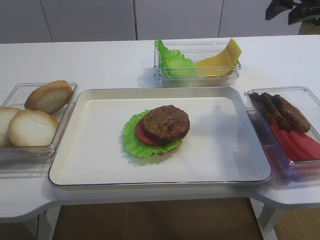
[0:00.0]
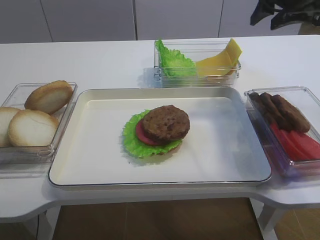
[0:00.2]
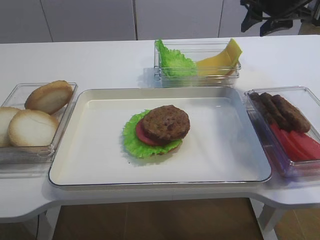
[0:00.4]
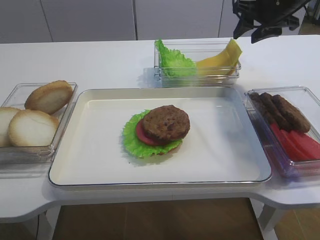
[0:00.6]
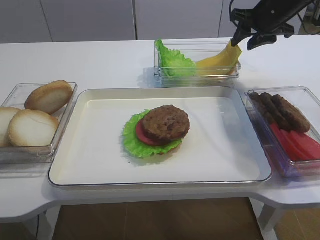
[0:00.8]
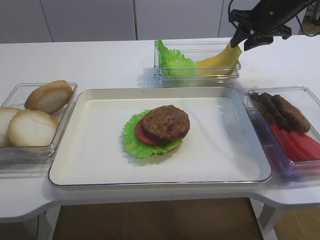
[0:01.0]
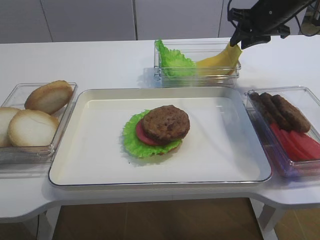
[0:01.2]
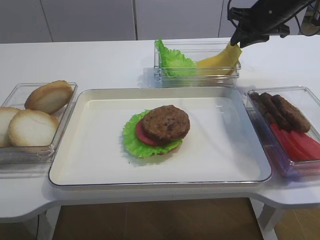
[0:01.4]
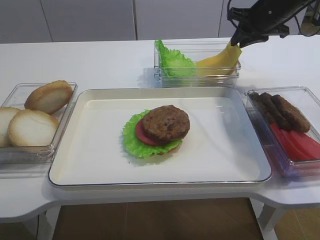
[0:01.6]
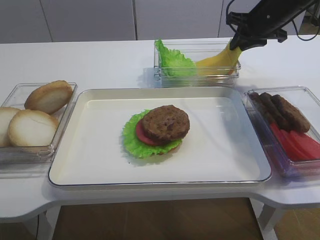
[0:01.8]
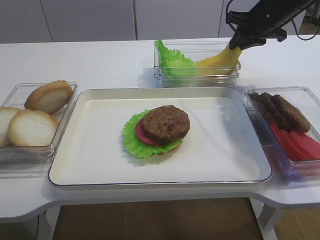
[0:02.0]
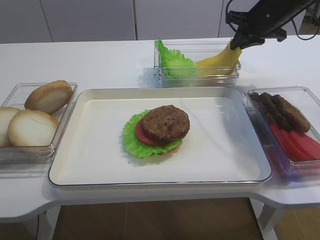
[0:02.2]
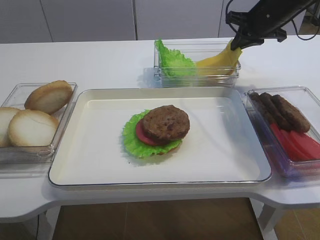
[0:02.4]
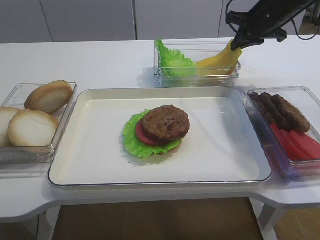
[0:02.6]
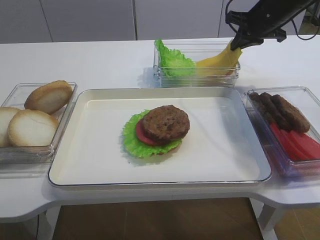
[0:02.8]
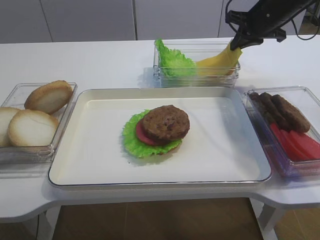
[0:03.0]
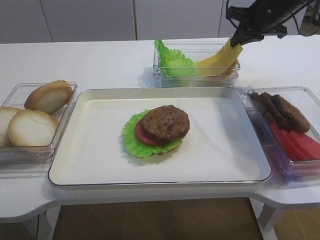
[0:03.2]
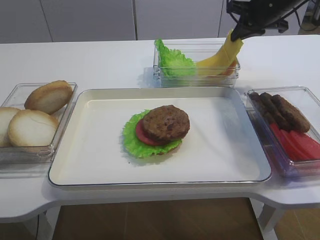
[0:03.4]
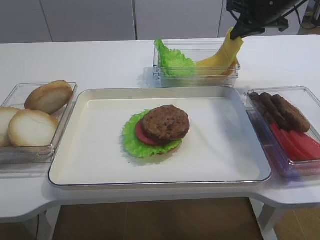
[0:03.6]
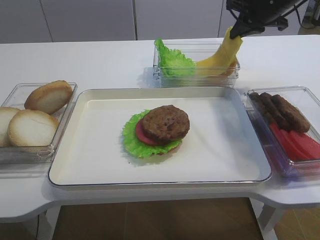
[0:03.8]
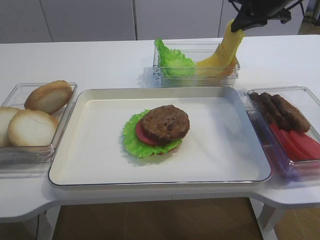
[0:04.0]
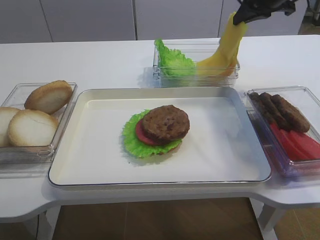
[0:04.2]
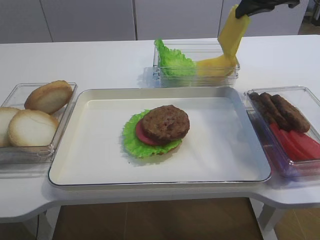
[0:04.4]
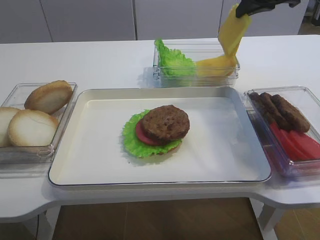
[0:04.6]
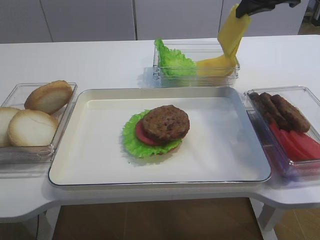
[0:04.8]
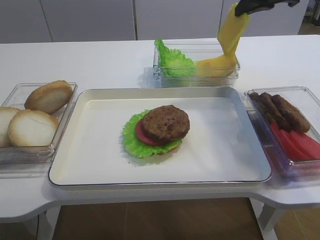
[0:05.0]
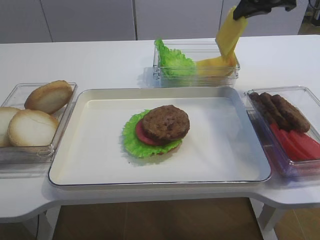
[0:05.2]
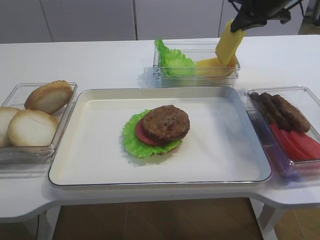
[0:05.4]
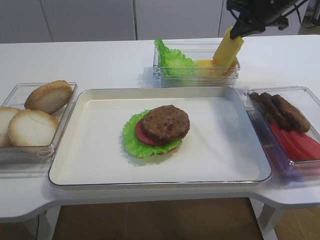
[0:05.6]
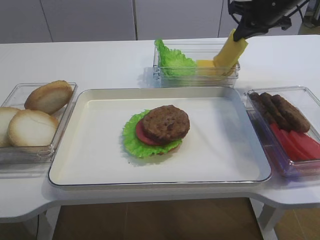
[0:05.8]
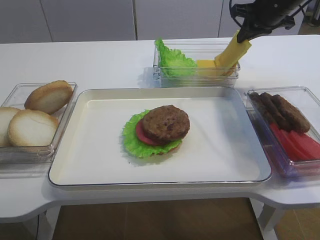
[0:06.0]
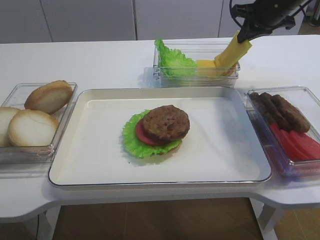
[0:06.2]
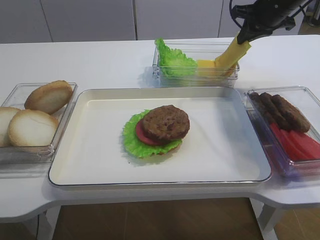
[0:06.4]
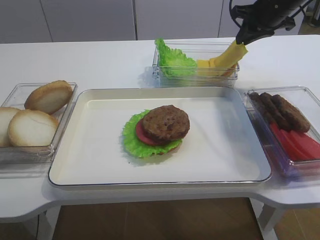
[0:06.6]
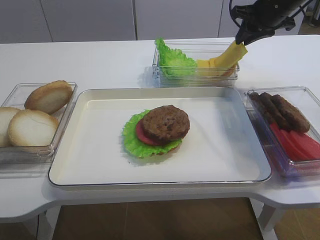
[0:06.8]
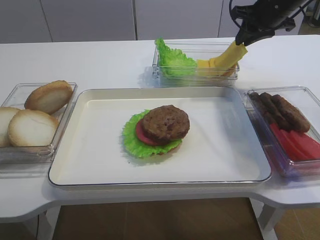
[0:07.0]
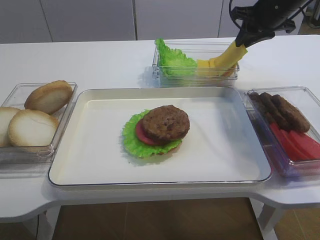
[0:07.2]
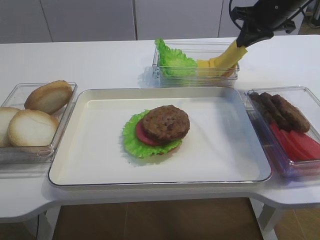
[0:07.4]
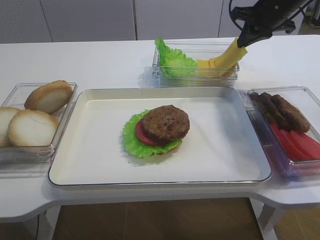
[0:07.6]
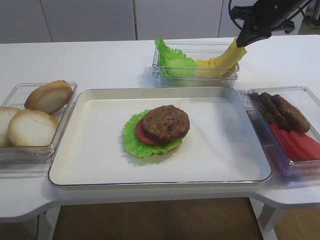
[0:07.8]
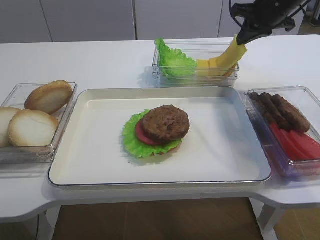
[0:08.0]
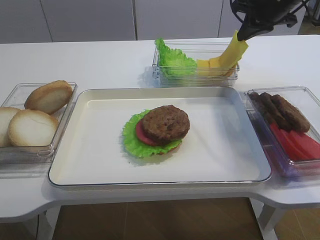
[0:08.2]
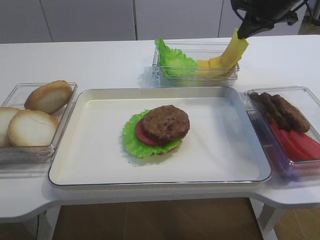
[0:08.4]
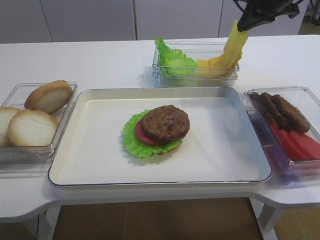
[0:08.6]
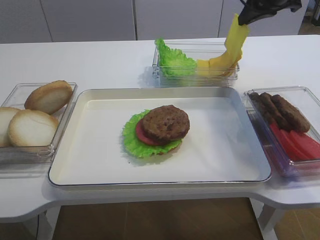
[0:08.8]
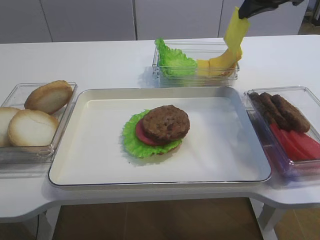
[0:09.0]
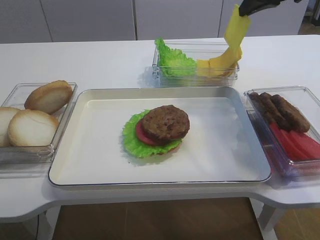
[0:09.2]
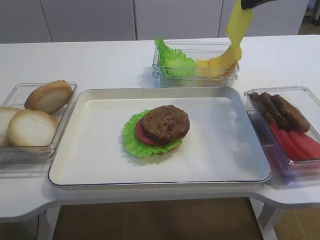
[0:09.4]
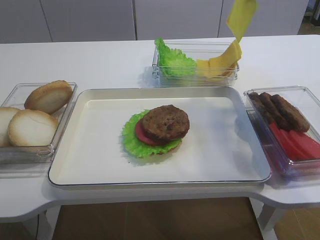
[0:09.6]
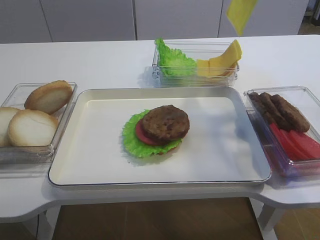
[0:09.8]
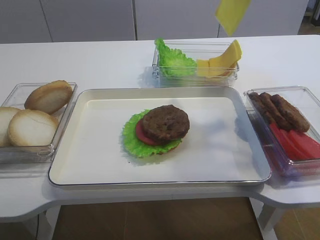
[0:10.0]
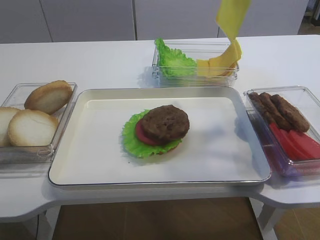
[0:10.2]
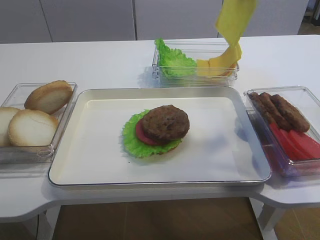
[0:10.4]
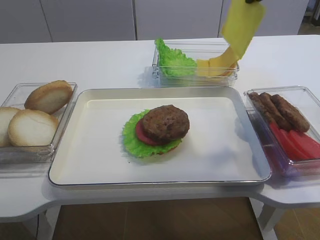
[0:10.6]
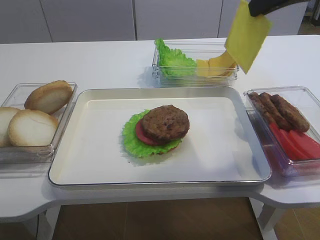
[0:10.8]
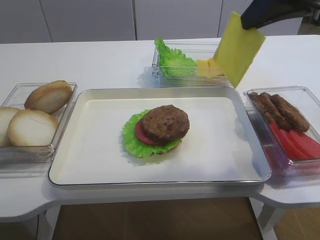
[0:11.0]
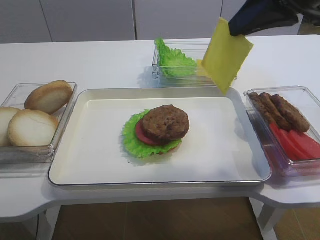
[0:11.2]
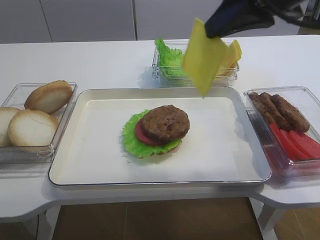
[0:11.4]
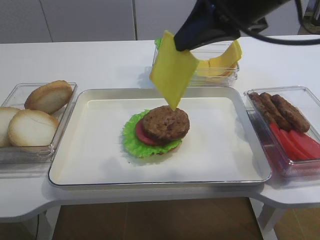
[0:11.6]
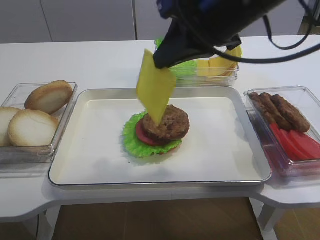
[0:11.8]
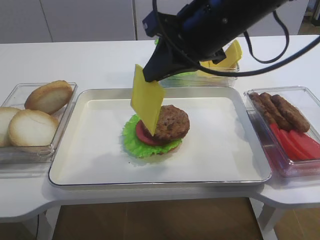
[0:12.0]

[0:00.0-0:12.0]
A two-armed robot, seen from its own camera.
Step, 0:00.0 to 0:04.0: Pick up the cheese slice with the right gripper.
0:00.0 to 0:01.6: The right gripper goes some 15 cm forward and downward, and closes its fingers.
0:01.6 to 0:03.0: The right gripper closes its fingers.
0:03.0 to 0:04.4: The right gripper shifts approximately 5 cm upward.
0:04.4 to 0:06.0: The right gripper moves about 5 cm.
0:06.0 to 0:07.6: Neither gripper changes place.
0:07.6 to 0:09.0: The right gripper goes about 5 cm upward.
0:09.0 to 0:10.4: The right gripper heads backward and upward, covering about 15 cm.
0:10.4 to 0:12.0: The right gripper travels to the left, downward and backward by approximately 15 cm.

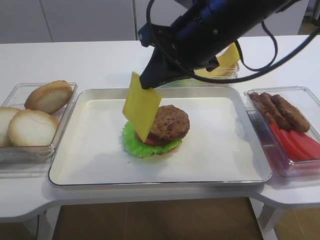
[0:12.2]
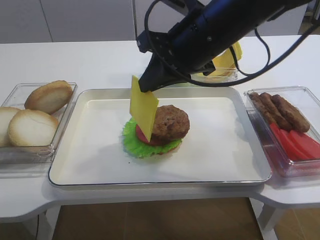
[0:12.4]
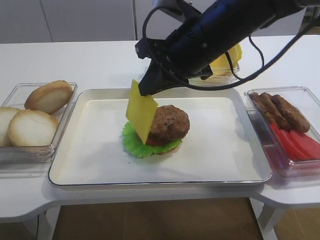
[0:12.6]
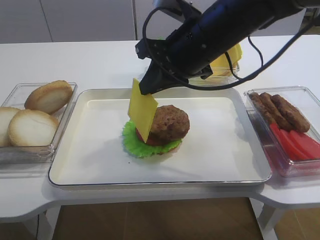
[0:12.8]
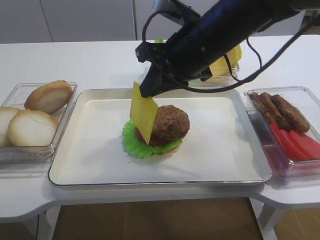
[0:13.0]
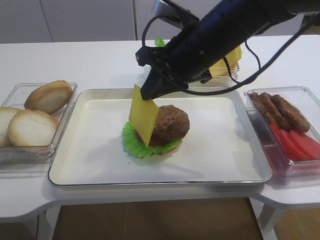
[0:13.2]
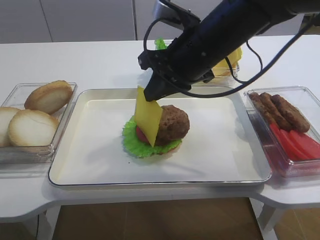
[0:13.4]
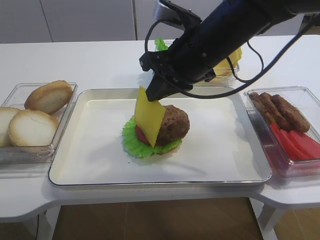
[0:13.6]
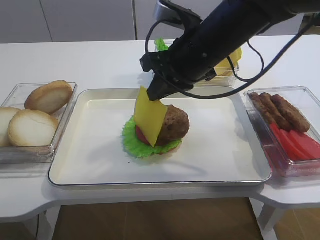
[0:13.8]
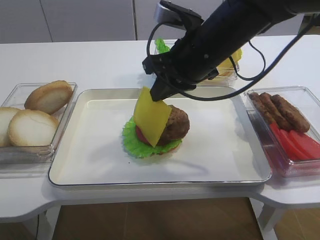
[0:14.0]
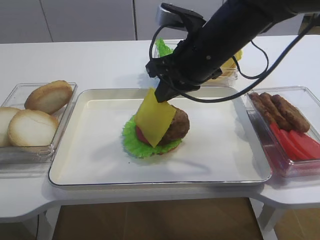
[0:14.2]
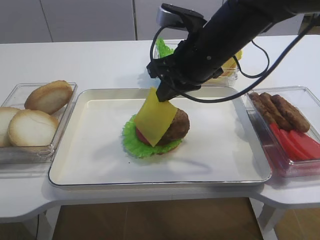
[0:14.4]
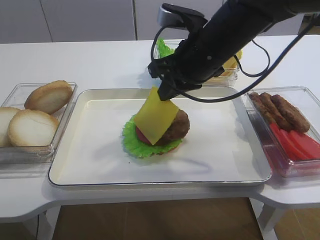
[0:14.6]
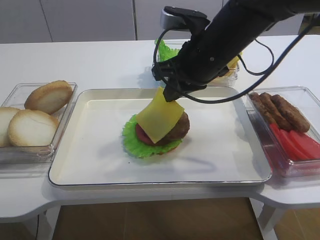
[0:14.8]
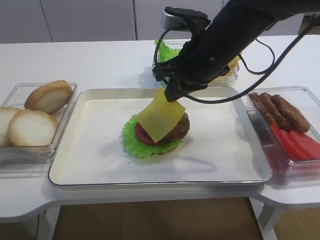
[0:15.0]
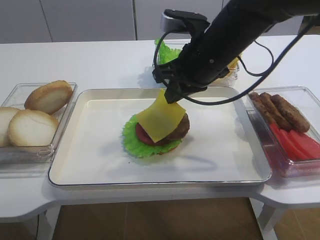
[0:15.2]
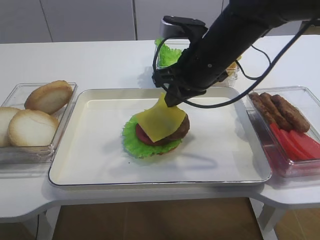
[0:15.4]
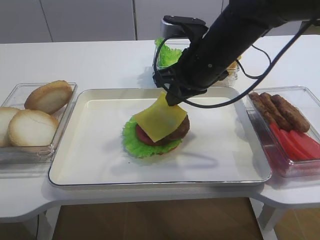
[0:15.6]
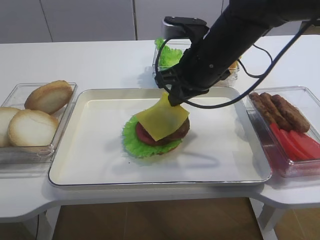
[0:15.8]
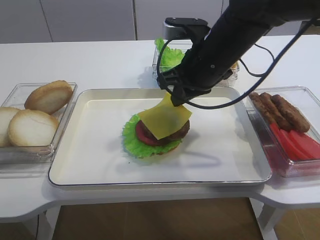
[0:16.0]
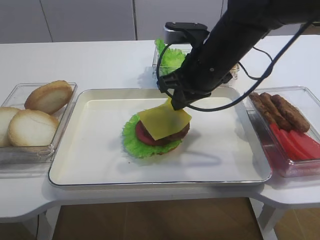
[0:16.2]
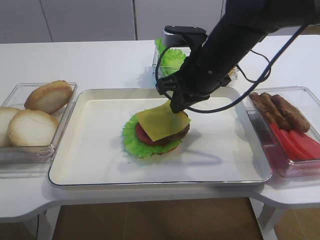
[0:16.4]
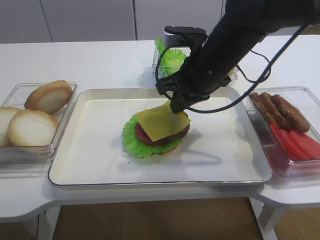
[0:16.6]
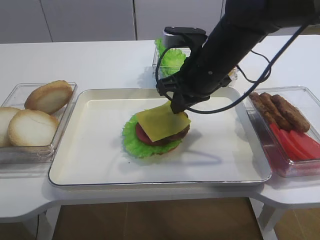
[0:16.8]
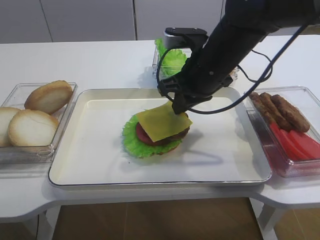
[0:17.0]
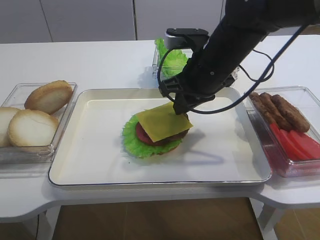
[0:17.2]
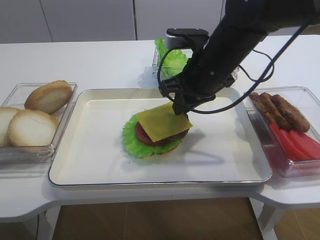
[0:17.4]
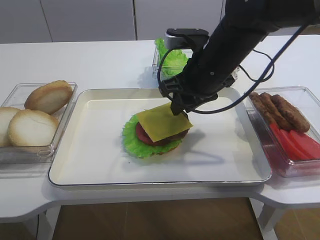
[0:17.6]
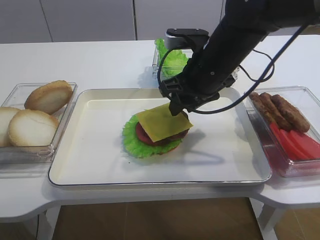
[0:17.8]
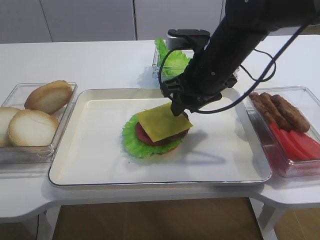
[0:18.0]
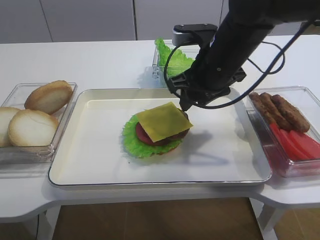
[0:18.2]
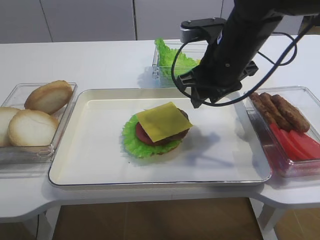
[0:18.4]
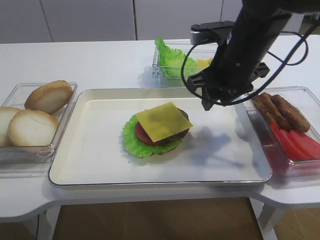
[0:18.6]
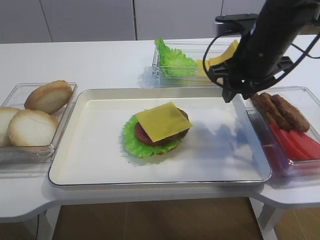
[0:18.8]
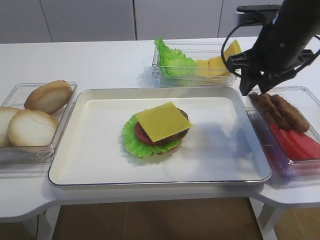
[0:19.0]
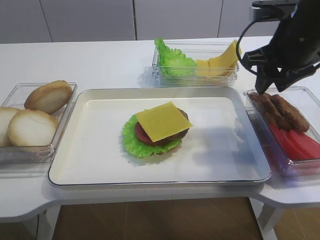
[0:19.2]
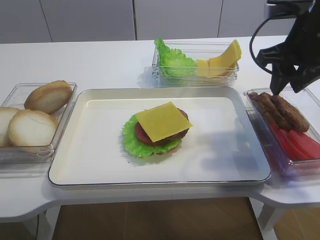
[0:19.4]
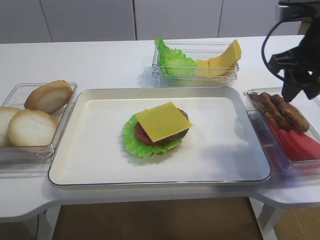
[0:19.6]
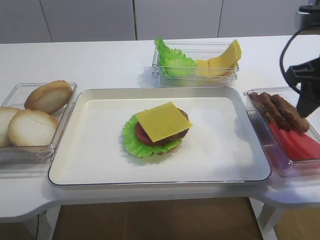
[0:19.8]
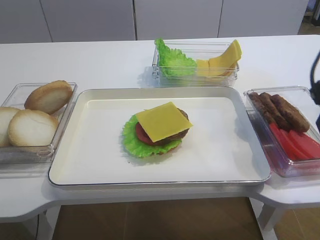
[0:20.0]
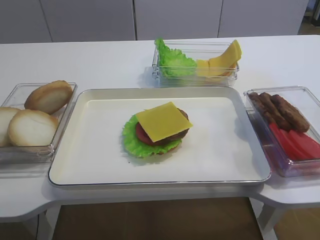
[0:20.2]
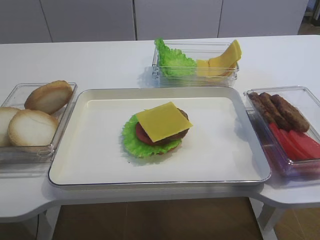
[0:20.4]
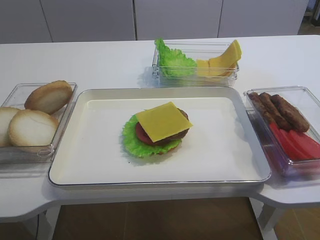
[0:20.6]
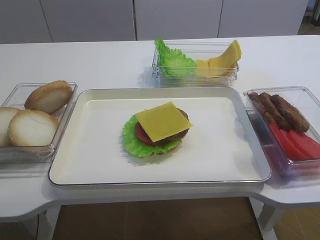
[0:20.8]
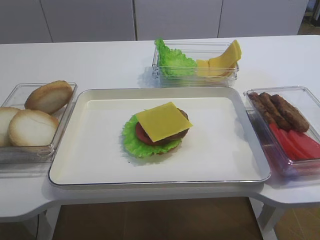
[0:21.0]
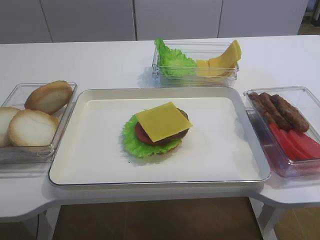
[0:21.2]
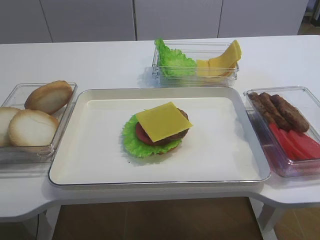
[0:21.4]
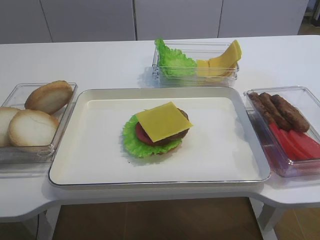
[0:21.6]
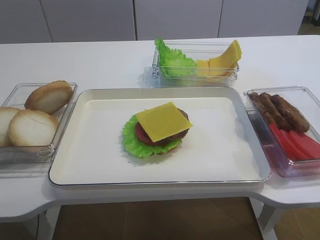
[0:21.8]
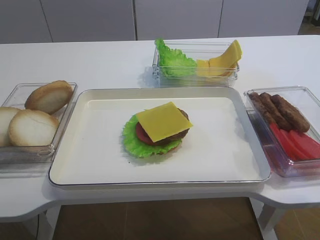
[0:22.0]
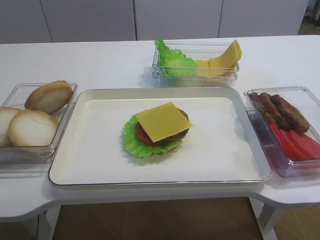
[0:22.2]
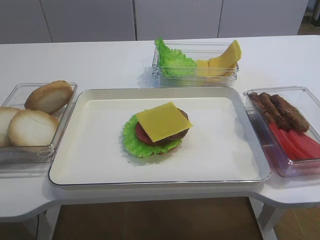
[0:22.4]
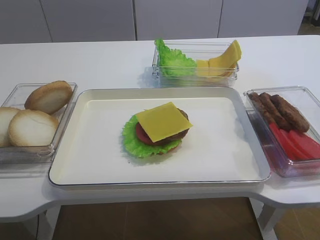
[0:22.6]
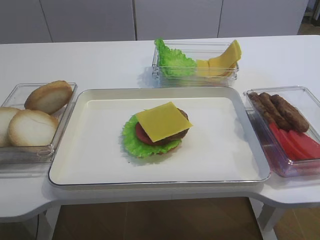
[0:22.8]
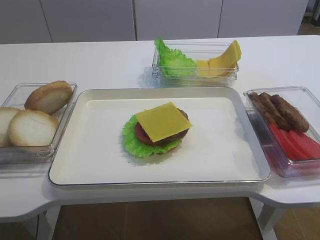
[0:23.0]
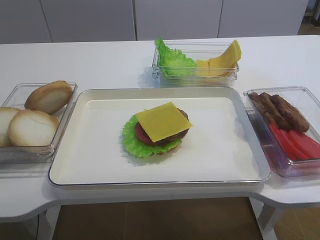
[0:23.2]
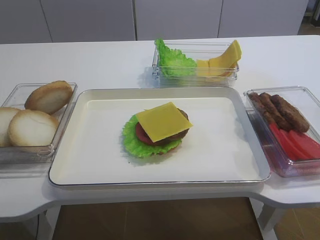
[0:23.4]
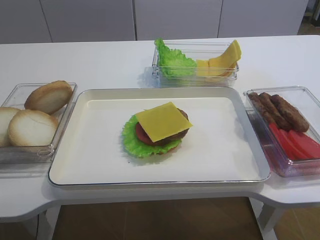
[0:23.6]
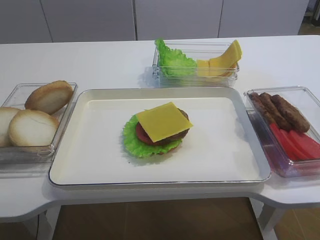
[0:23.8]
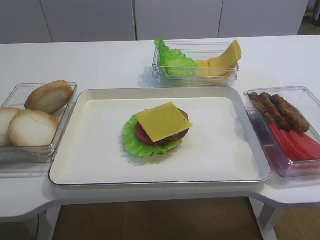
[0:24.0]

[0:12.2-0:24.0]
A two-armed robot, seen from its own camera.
Step, 0:12.2 to 0:18.0: Place the cheese slice on the cutlet with the right gripper.
0:12.2 to 0:15.2: The grippers stay close to where they were, moving slightly.
0:15.2 to 0:16.6: The grippers make only small movements.
0:16.6 to 0:18.2: The right gripper opens its fingers.
0:18.2 to 0:19.6: The right gripper goes about 15 cm to the right and upward.
0:19.6 to 0:21.0: The right gripper heads backward, covering roughly 30 cm.
0:21.0 to 0:22.6: The right gripper shifts some 5 cm downward.
